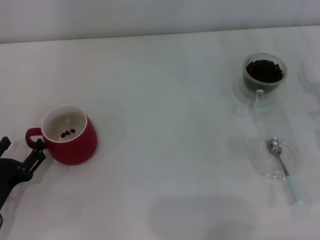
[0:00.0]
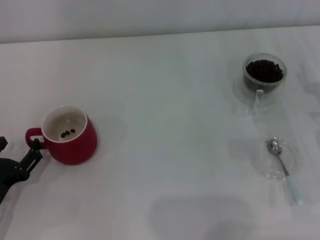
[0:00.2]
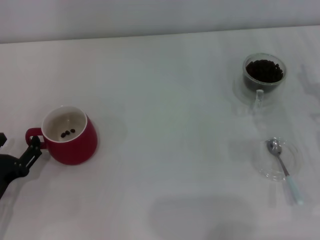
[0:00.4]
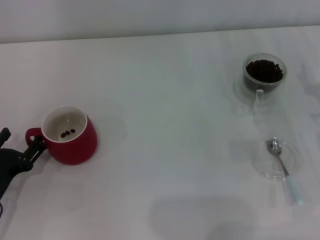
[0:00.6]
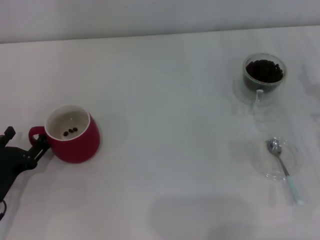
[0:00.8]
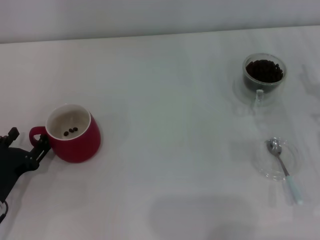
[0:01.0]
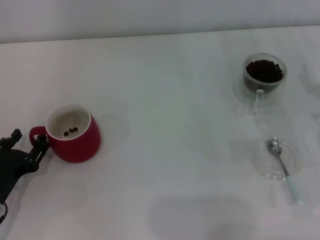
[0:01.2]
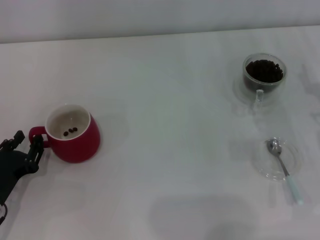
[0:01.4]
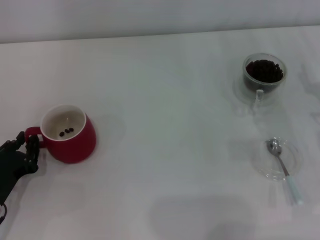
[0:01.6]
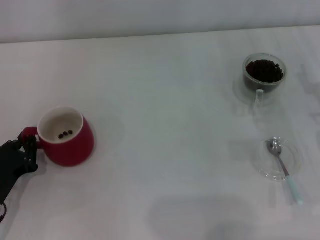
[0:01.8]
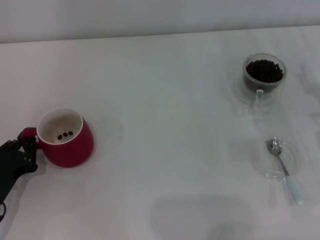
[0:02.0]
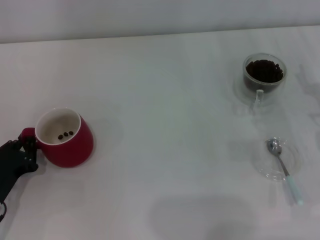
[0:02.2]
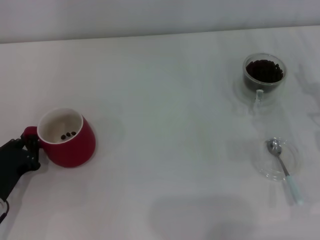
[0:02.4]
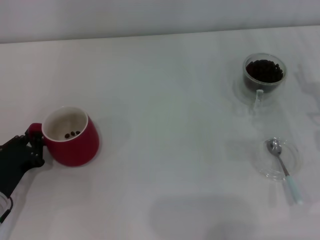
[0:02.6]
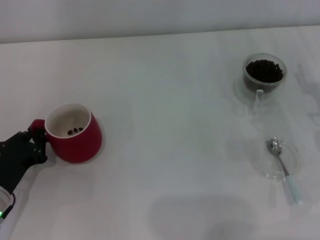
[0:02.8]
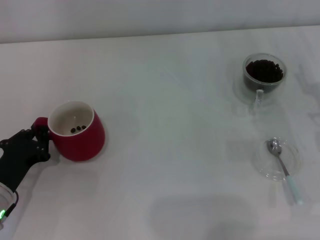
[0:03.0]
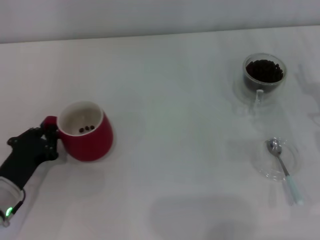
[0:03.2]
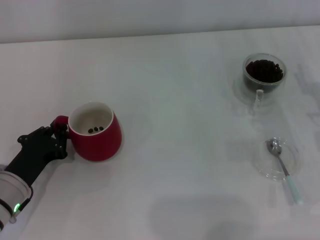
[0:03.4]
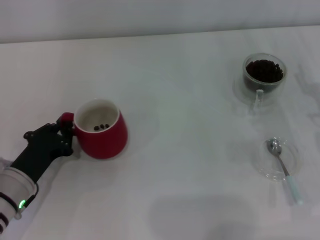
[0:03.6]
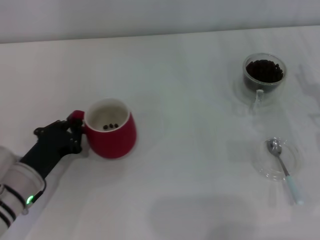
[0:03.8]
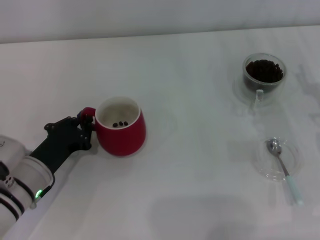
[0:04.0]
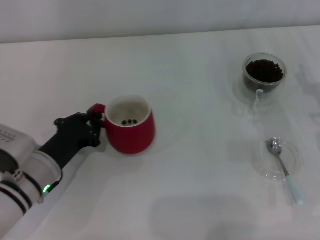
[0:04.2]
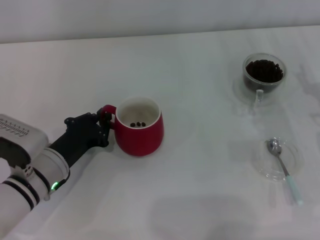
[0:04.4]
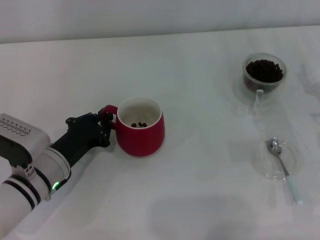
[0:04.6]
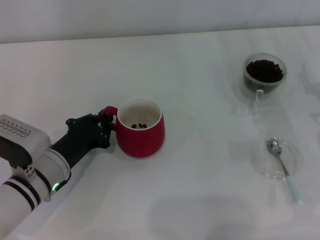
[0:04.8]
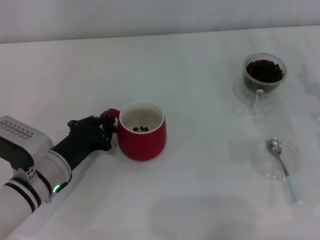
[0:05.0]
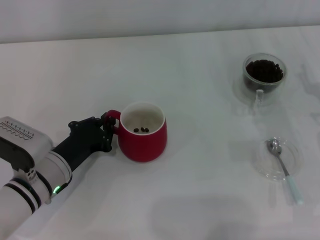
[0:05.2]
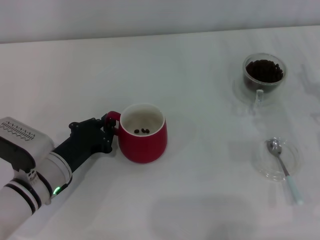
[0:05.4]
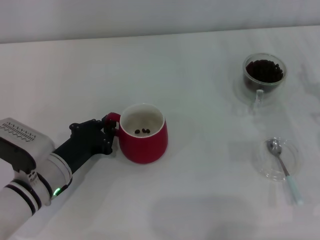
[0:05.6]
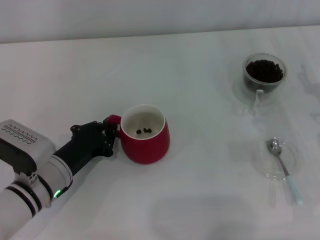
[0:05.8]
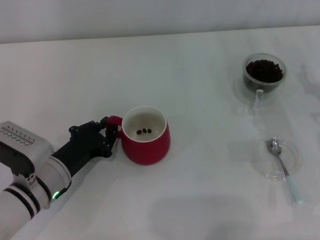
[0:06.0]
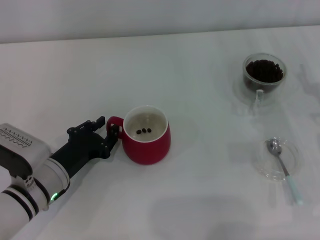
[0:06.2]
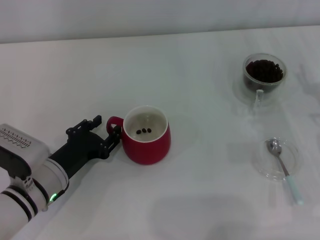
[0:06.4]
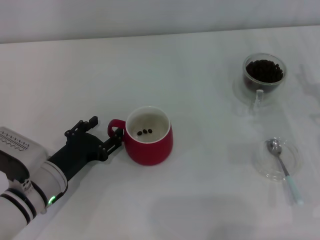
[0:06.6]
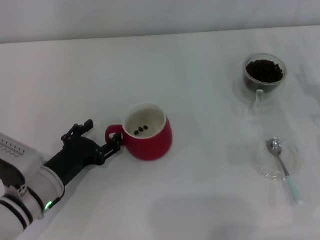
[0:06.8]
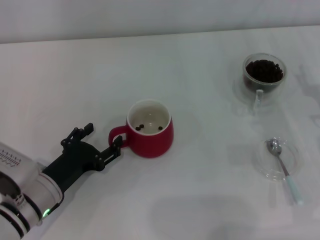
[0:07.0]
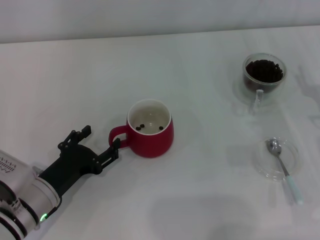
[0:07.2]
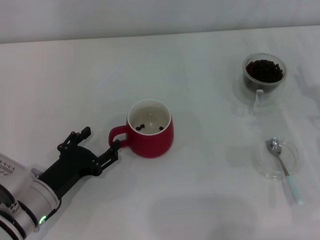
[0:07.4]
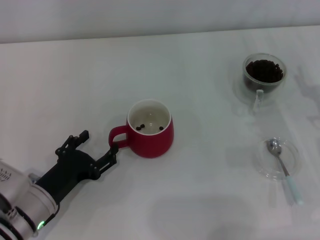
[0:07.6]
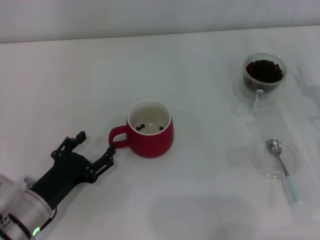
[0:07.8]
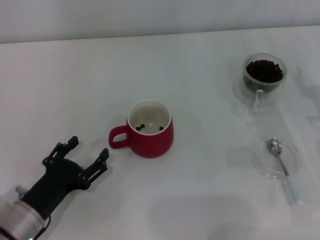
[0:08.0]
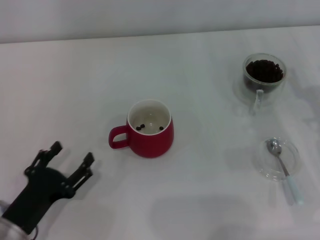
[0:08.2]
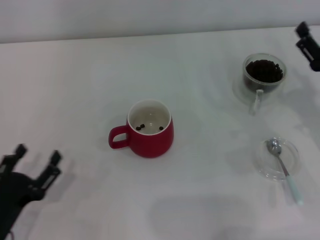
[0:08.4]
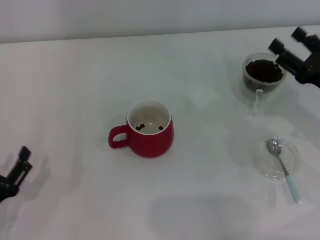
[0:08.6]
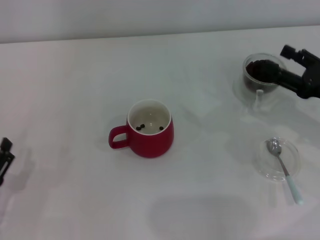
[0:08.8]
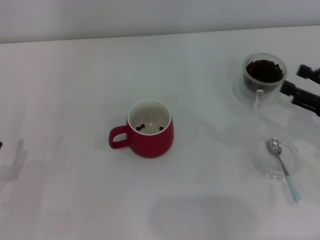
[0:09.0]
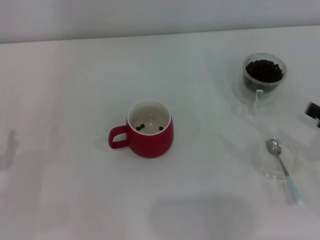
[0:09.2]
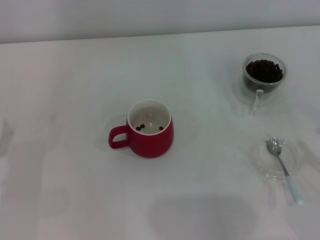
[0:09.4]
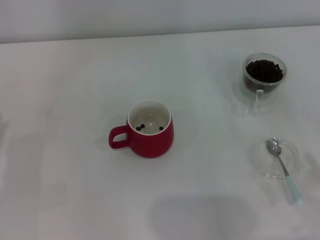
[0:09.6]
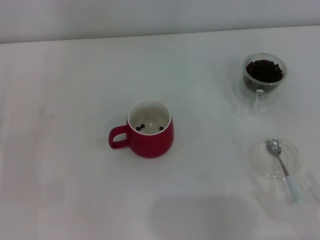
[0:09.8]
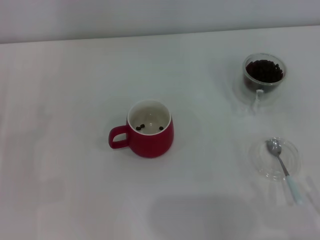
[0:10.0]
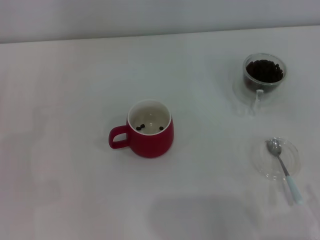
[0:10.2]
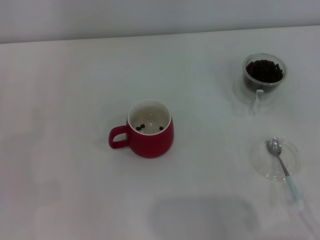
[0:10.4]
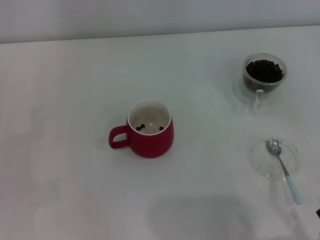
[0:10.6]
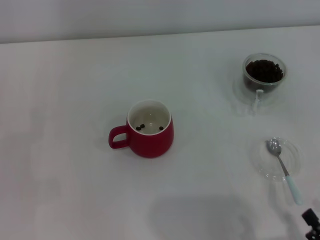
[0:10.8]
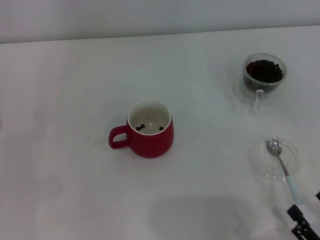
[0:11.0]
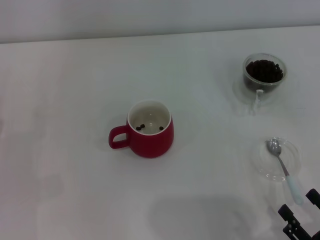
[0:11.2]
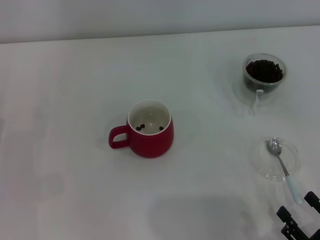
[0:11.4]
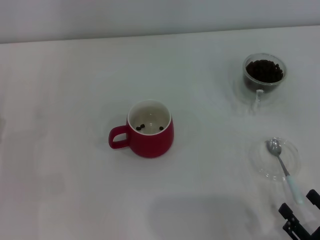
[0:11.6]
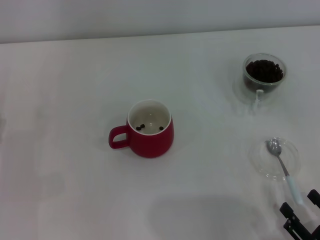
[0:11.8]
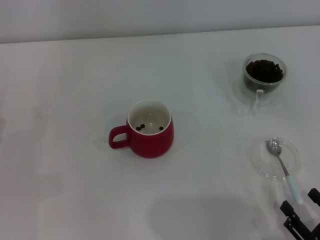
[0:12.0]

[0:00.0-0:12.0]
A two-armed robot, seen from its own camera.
Task of the whole recording: Use a blue spoon to take out the coffee beans from the glass and pour them into the red cup.
Step, 0:00.0 to 0:08.0: Move the cup to the center of view with the left gripper.
0:00.0 to 0:01.6: The left gripper closes its fingers.
0:01.6 to 0:03.0: The left gripper closes.
0:03.0 to 0:04.4: The left gripper moves to the right, roughly 5 cm.
0:04.4 to 0:06.0: Both grippers stay put.
0:06.0 to 0:07.6: The left gripper opens its fingers.
0:07.6 to 0:09.0: The right gripper changes place by roughly 5 cm; the left gripper moves to the left, some 10 cm.
0:09.0 to 0:10.4: The right gripper heads backward, covering roughly 20 cm.
0:10.4 to 0:12.0: The grippers make only small movements.

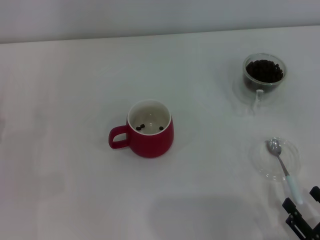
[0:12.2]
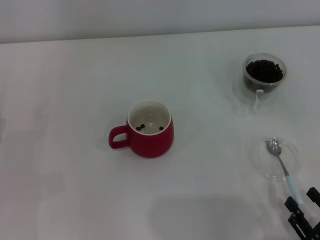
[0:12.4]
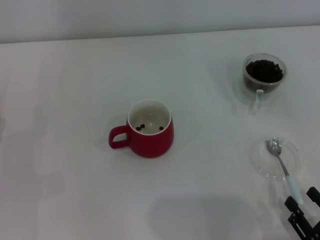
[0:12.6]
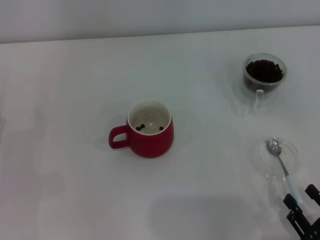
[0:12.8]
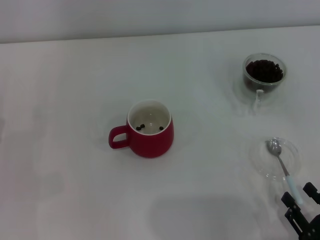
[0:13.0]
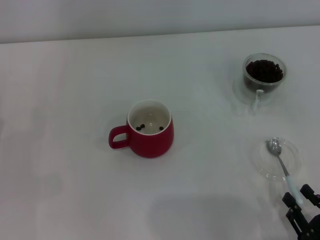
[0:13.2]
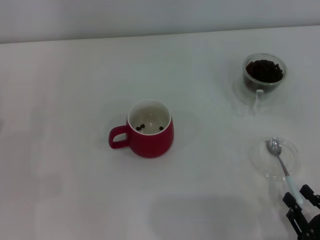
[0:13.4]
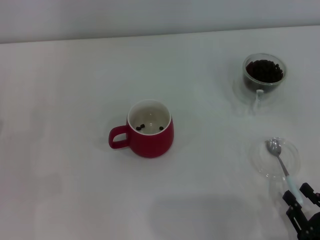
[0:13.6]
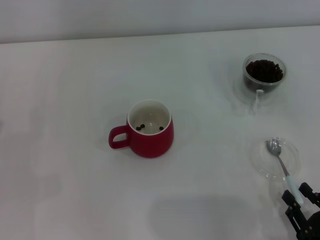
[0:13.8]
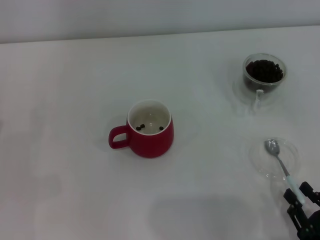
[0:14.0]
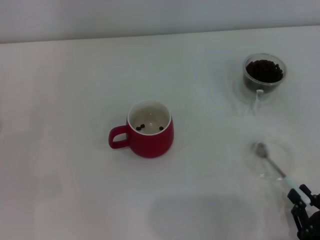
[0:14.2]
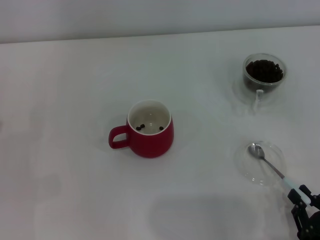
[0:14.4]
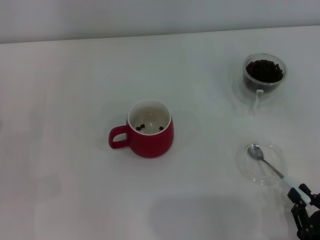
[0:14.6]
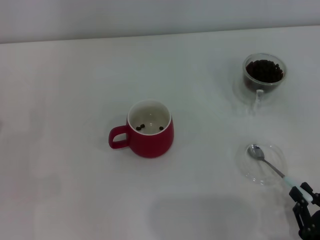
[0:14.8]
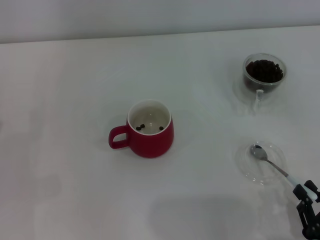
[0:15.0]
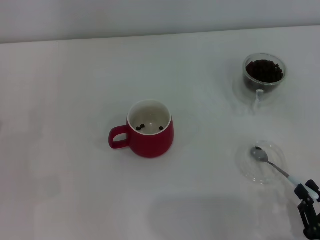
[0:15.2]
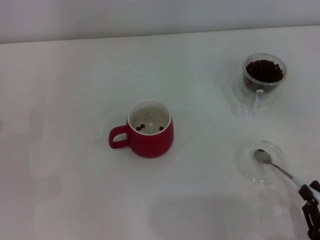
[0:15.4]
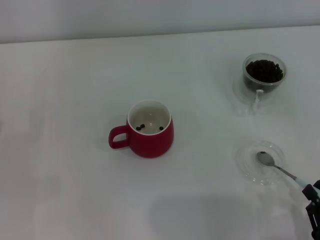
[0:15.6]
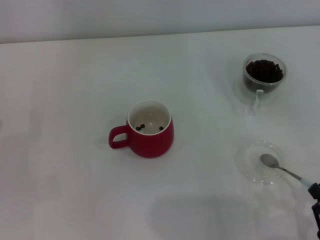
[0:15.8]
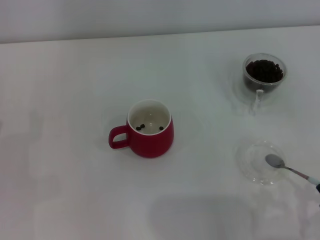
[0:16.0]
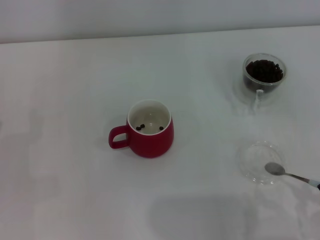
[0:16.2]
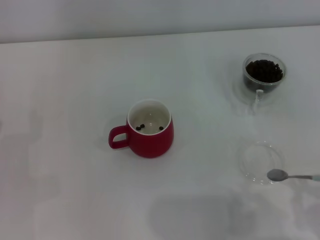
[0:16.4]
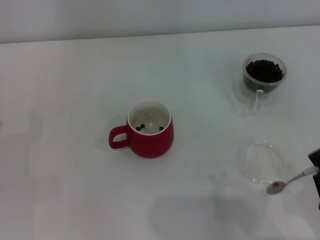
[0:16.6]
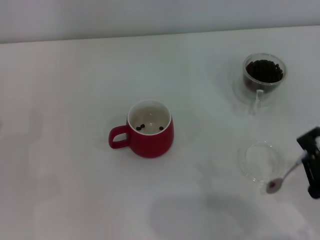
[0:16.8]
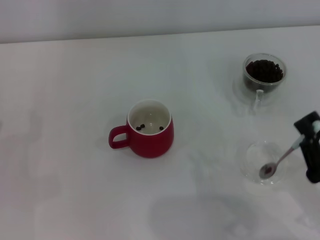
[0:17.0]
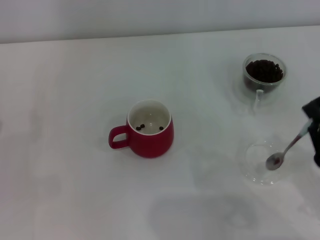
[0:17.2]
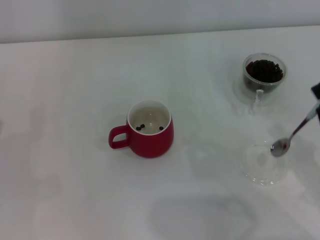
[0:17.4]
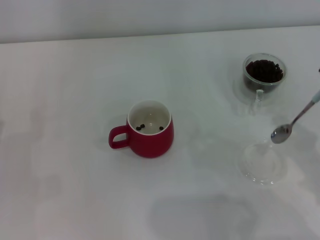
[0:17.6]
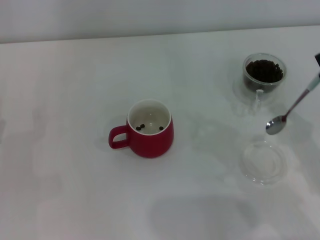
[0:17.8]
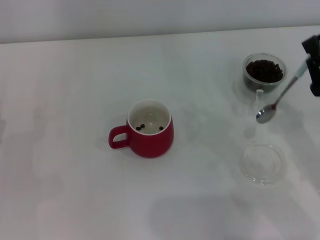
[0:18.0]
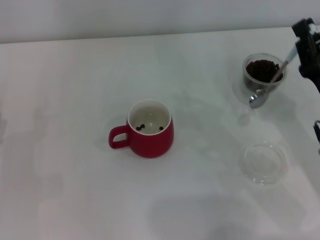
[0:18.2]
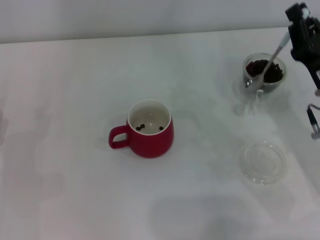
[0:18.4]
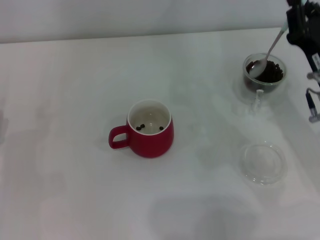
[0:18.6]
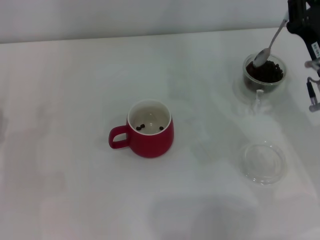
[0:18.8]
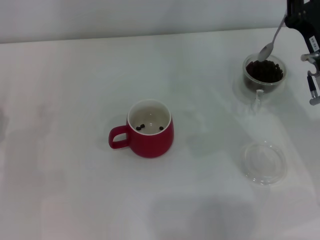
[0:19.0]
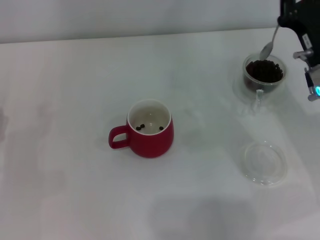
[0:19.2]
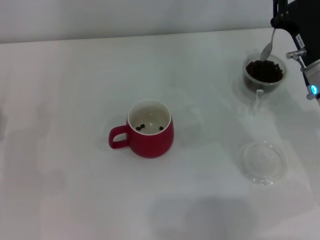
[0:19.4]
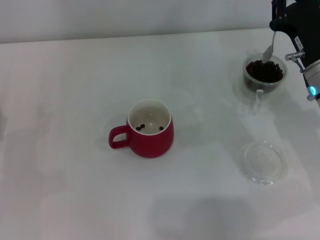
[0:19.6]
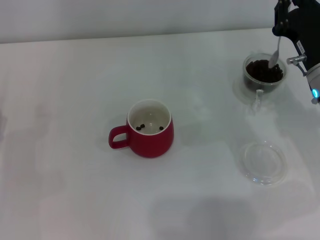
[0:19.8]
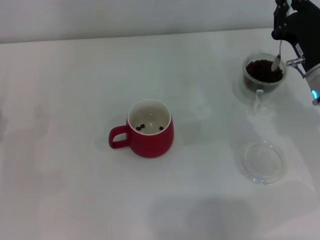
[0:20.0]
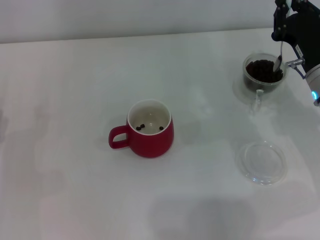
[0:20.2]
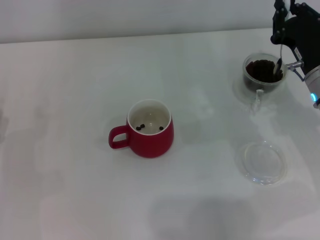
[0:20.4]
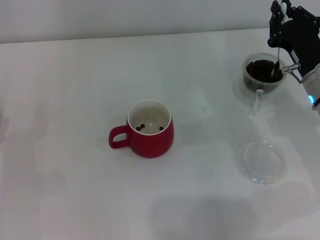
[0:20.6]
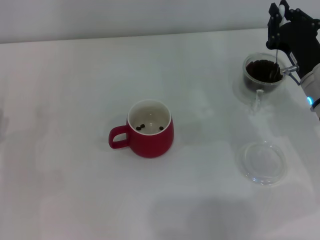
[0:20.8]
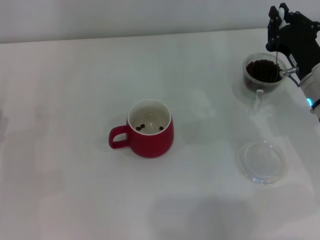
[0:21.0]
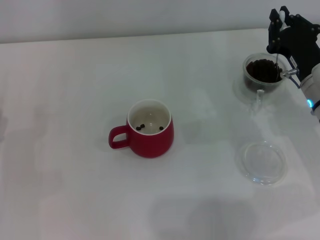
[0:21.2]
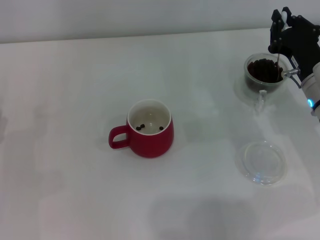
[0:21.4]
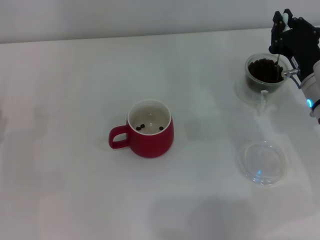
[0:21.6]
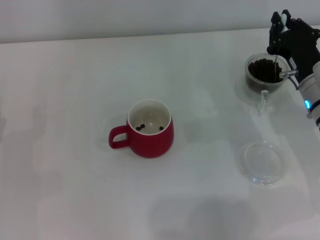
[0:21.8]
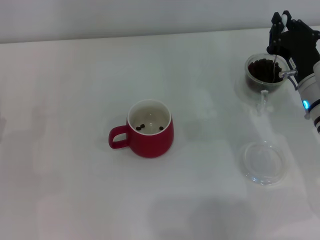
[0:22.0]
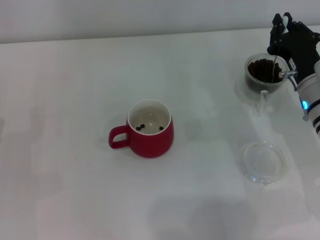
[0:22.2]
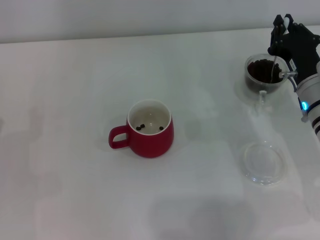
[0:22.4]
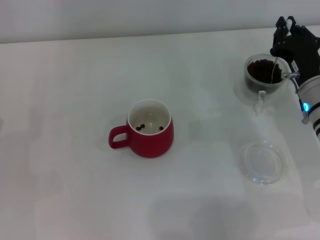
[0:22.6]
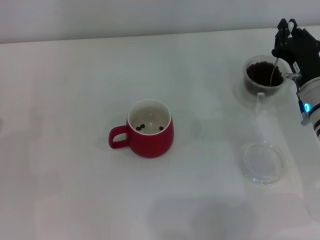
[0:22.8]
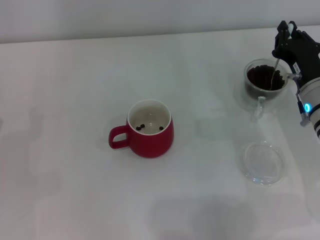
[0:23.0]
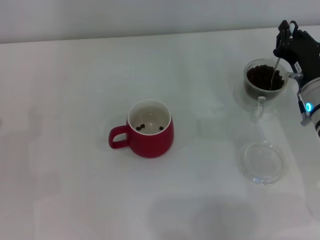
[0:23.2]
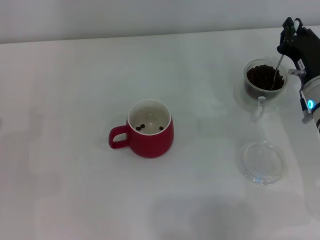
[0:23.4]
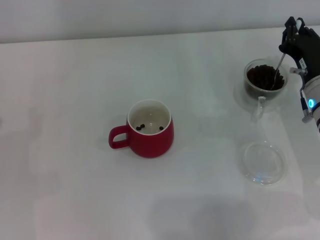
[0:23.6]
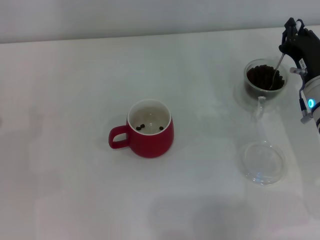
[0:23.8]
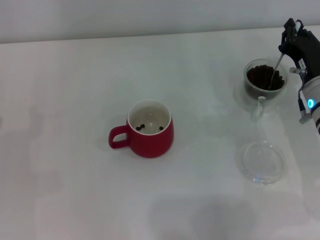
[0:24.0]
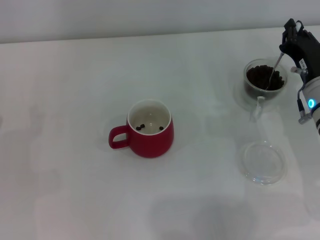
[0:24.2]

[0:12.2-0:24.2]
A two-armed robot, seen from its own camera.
Task of the whole recording: Use a blue spoon to take out the coffee beans from the glass and pour them into the red cup.
Step, 0:12.2 to 0:17.4: Pick up the spoon with the right gripper.
0:12.2 to 0:13.8: The right gripper closes up.
0:13.8 to 0:15.2: The two grippers keep their place.
0:16.6 to 0:18.2: The right gripper is displaced forward by approximately 15 cm.
0:18.2 to 0:19.8: The right gripper shifts approximately 10 cm forward.
0:19.8 to 0:22.6: The grippers make only small movements.
0:22.6 to 0:24.2: The grippers move only a little.
